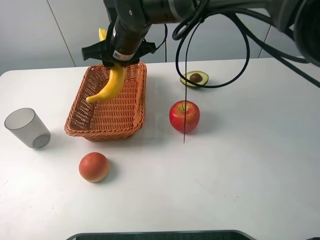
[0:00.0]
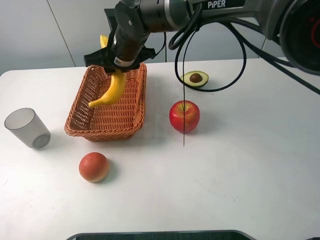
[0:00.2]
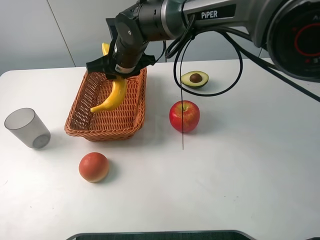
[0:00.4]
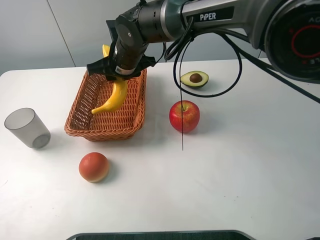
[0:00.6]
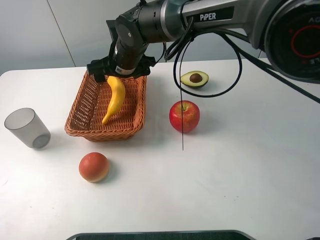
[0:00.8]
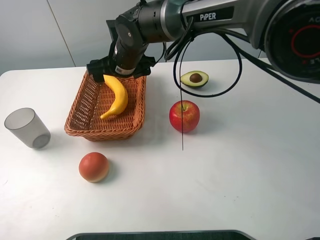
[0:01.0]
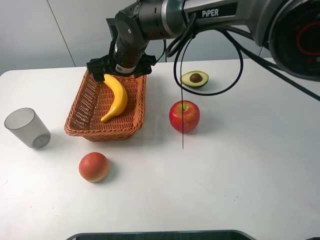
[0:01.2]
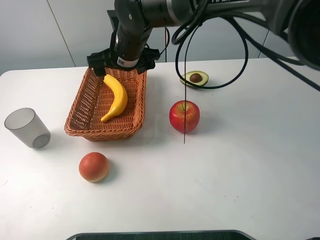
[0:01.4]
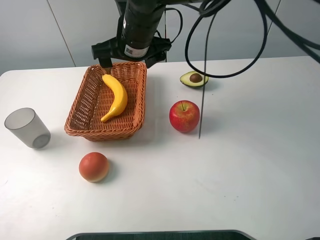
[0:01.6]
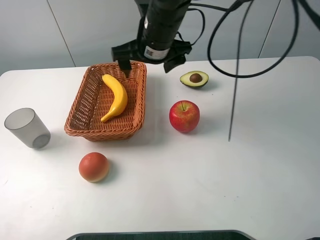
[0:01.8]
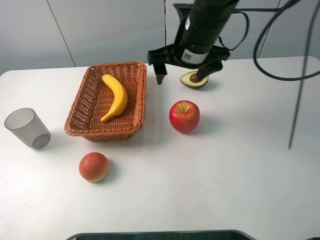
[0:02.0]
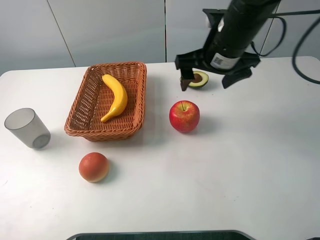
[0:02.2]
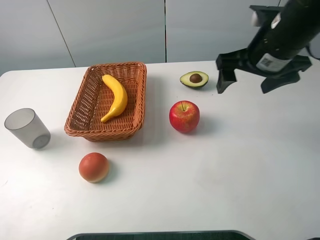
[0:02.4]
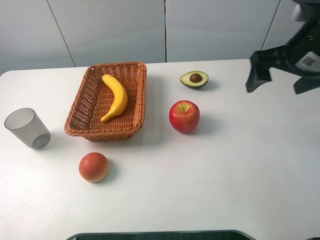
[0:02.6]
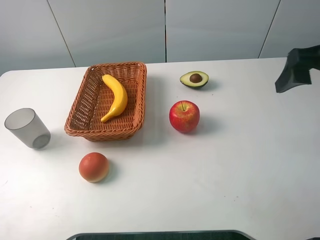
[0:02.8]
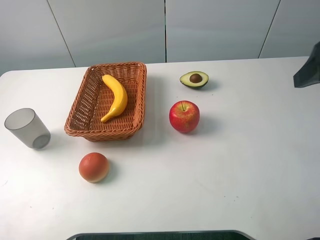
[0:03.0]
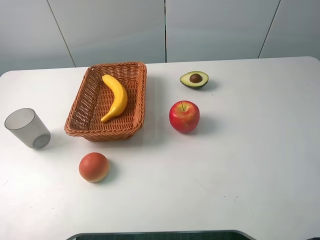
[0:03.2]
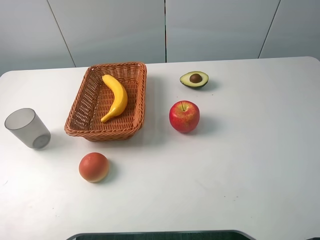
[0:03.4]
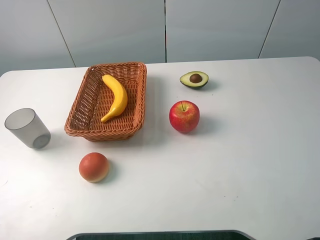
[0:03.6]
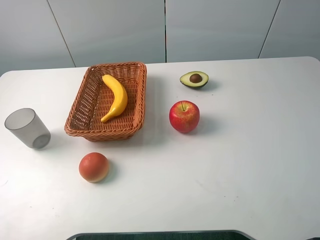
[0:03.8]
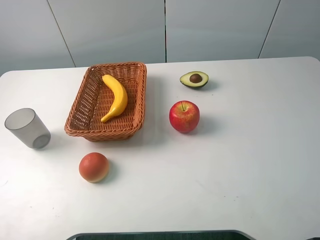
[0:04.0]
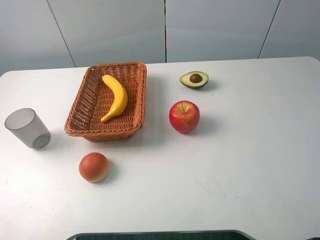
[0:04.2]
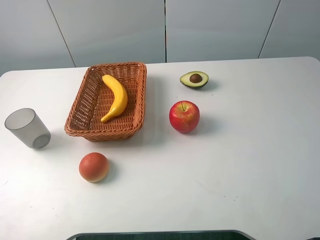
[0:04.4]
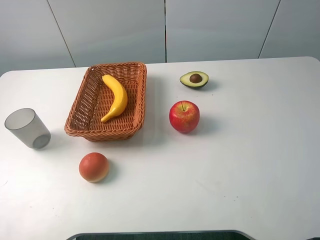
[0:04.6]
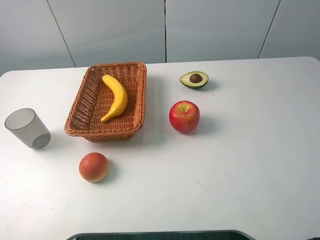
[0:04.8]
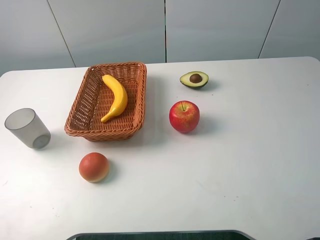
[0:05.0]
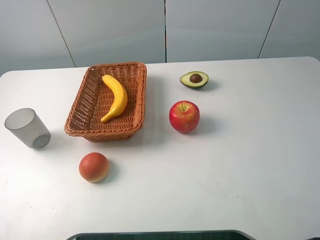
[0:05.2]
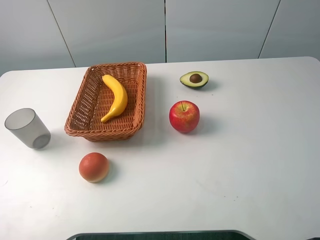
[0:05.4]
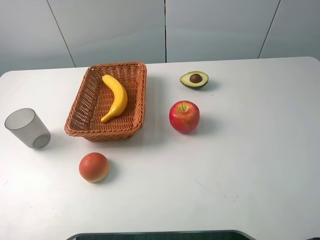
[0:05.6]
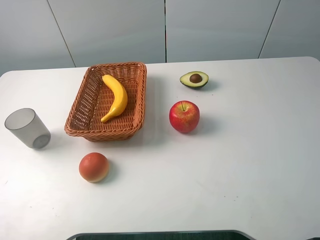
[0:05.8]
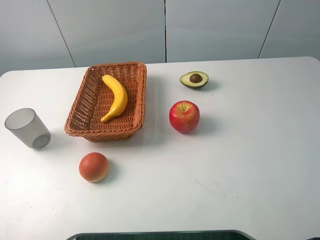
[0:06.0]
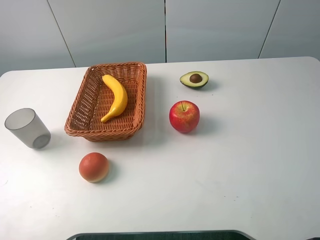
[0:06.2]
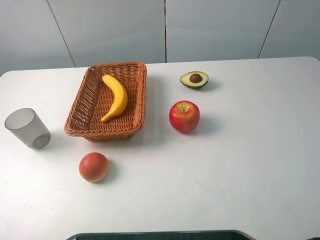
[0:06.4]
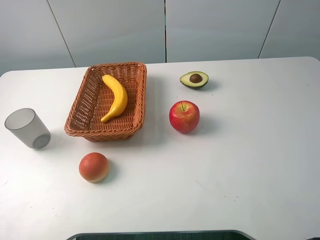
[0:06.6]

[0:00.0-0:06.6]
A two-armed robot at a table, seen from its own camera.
0:00.0 to 0:01.6: The right gripper shifts by about 5 cm, and opens up.
0:01.6 to 0:03.2: The right gripper shifts about 40 cm to the right and backward.

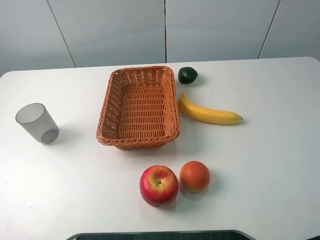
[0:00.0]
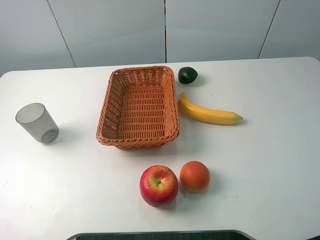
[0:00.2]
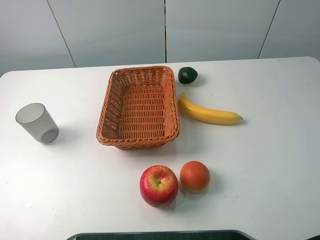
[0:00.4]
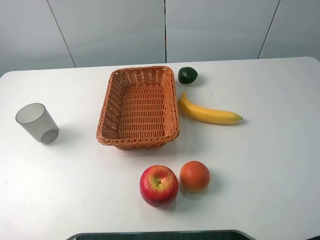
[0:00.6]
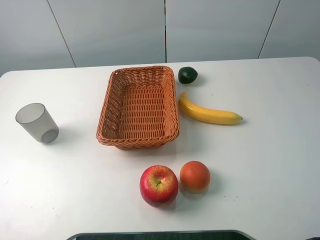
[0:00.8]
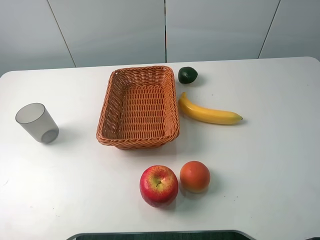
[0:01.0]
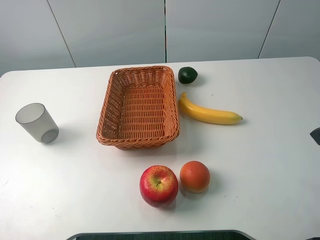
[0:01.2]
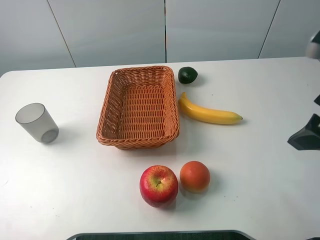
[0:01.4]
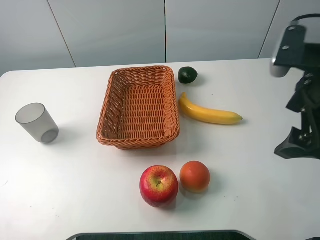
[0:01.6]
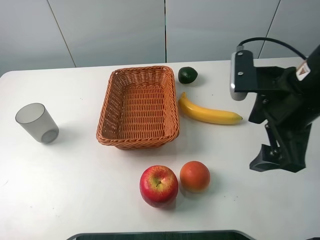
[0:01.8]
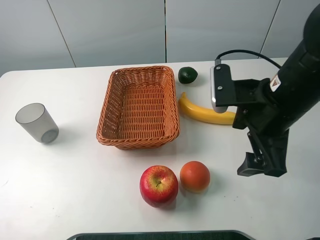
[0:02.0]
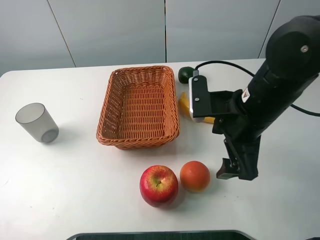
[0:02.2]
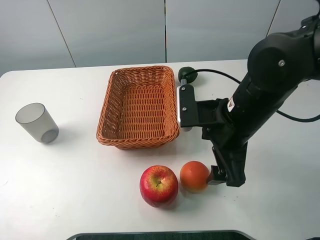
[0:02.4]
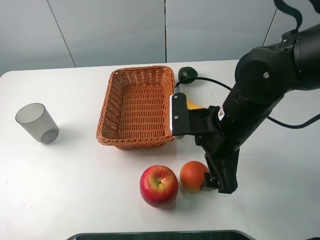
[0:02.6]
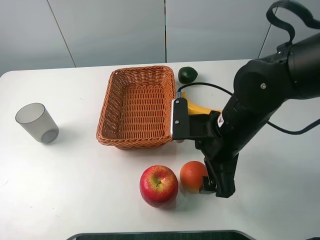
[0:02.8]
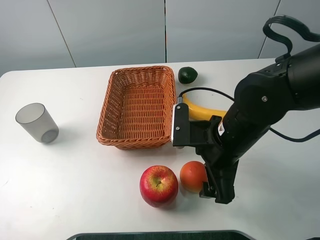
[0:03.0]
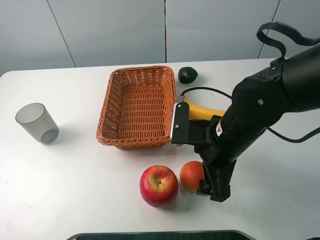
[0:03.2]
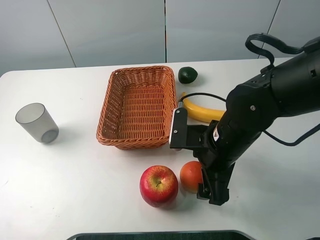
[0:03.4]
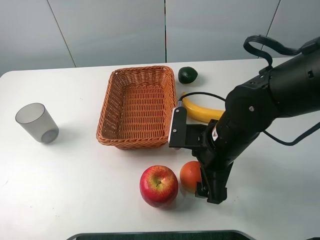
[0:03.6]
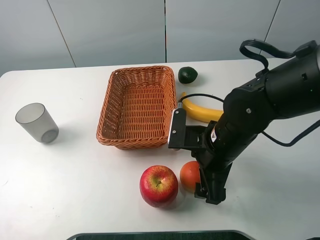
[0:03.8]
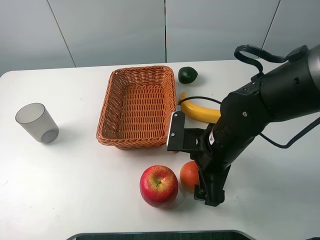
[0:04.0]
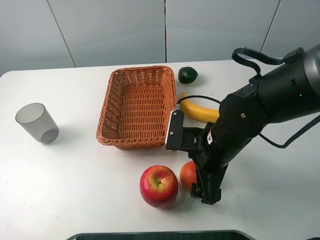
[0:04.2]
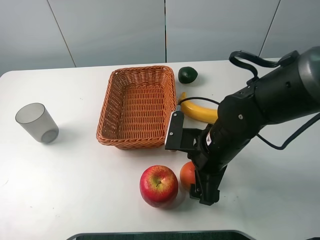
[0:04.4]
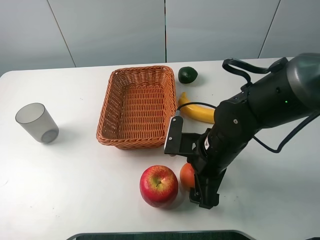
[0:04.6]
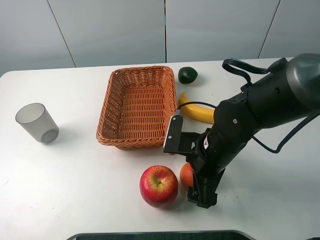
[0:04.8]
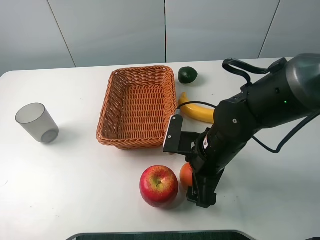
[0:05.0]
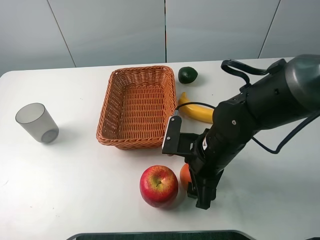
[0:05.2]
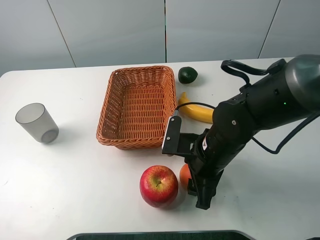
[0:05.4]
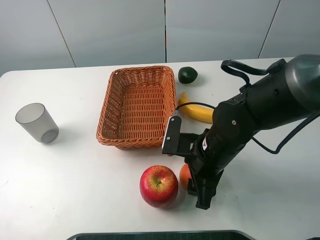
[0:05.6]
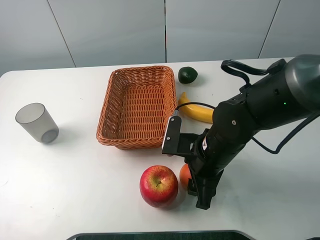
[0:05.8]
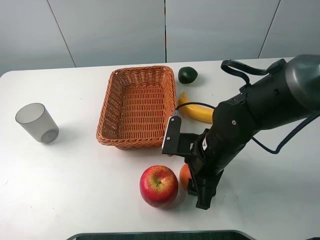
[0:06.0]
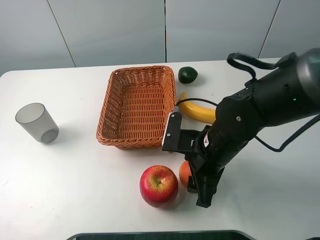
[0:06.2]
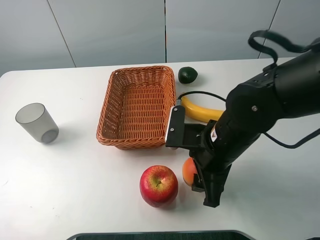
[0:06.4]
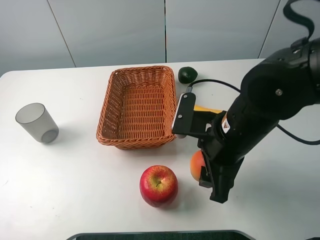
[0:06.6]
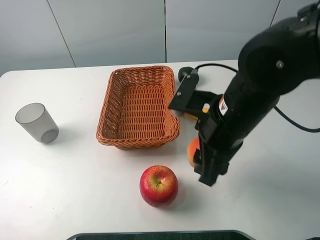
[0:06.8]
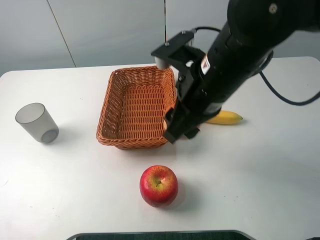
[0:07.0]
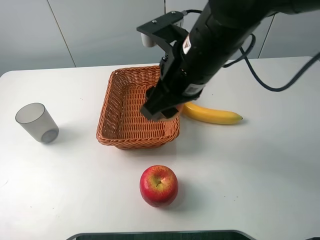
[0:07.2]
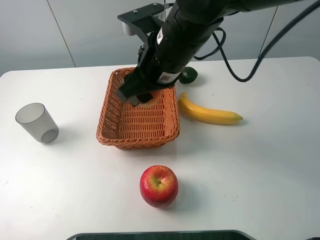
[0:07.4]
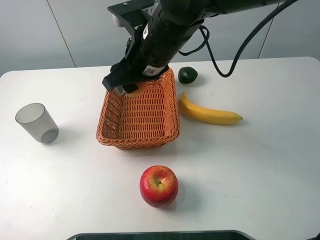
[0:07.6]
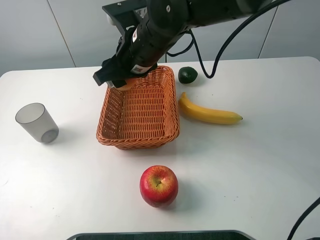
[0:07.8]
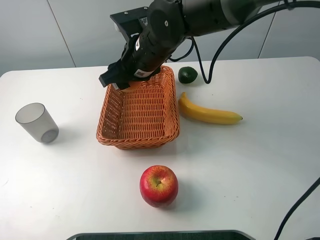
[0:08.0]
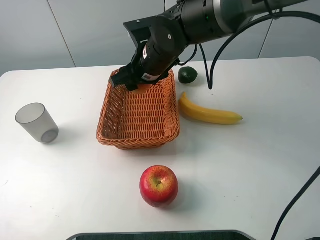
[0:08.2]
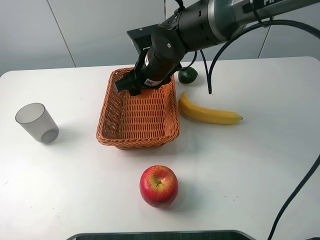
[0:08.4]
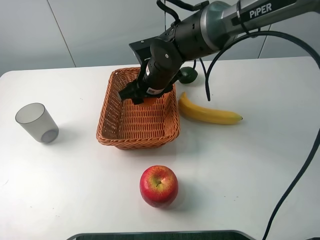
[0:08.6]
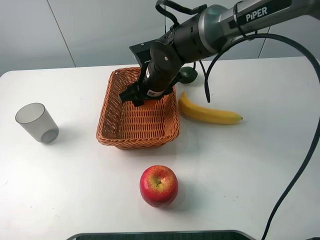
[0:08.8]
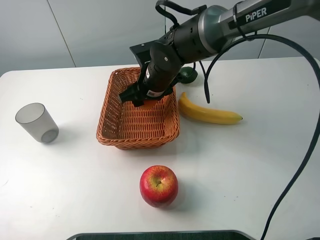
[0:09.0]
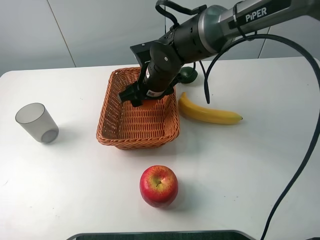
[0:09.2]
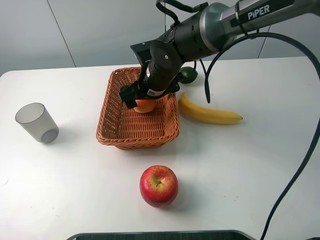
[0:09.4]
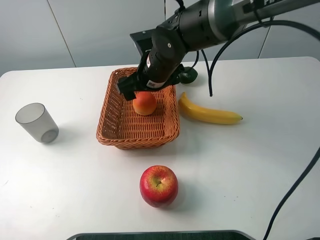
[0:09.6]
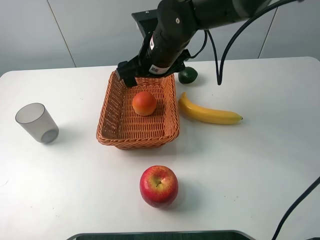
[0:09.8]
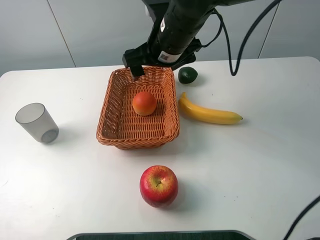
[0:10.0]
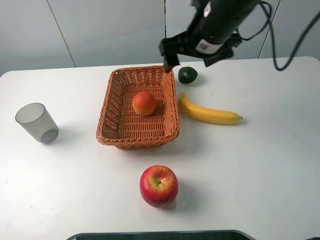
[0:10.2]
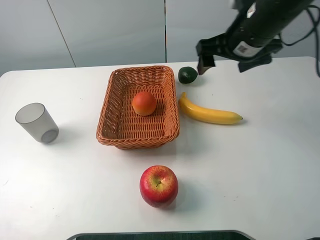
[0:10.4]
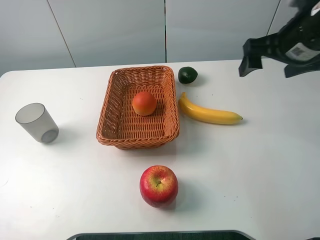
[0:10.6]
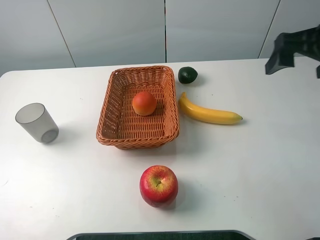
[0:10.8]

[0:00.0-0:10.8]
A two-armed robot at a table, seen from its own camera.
0:00.0 to 0:01.6: The right gripper goes roughly 20 cm forward and to the left.
0:01.6 to 0:03.0: The right gripper travels downward and to the left by about 15 cm.
0:03.0 to 0:04.6: The grippers make only small movements.
0:04.6 to 0:06.2: The right gripper closes its fingers.
0:06.2 to 0:07.8: The right gripper goes about 20 cm forward, to the left and upward.
0:07.8 to 0:09.2: The right gripper shifts some 10 cm downward, and opens up.
0:09.2 to 0:10.8: The right gripper moves to the right and upward, roughly 30 cm, and opens up.

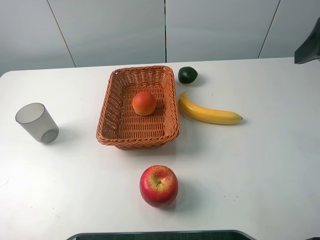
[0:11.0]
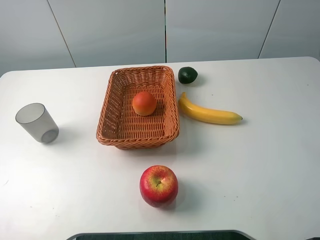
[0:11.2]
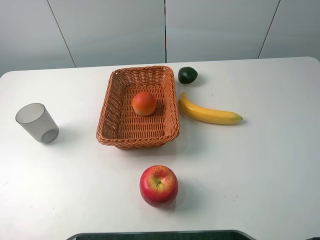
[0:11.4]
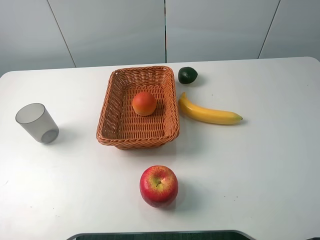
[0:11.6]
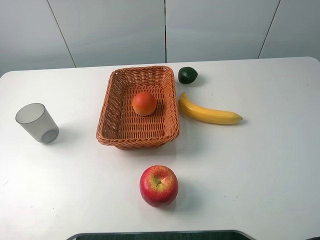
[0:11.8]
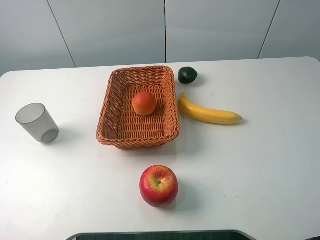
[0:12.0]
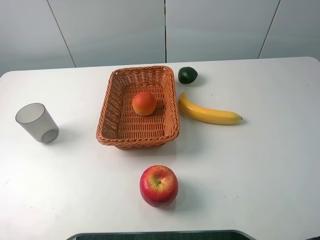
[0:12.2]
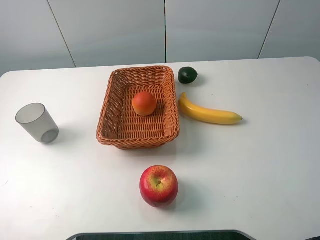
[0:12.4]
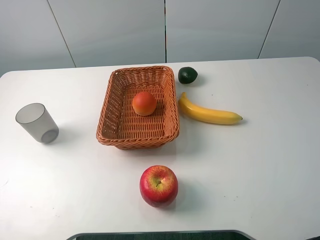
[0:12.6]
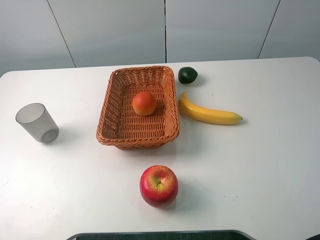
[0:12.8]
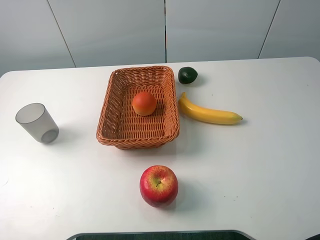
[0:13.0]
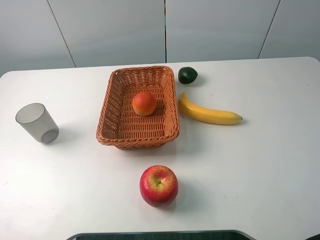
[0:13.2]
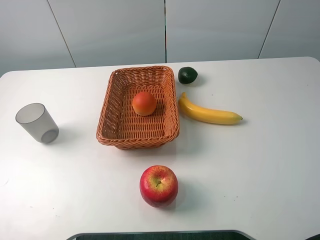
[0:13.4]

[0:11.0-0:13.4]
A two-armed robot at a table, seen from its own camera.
0:11.0 to 0:12.2: The right gripper shifts roughly 20 cm backward.
